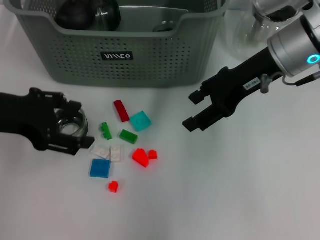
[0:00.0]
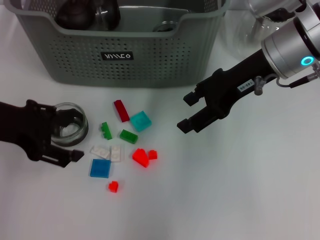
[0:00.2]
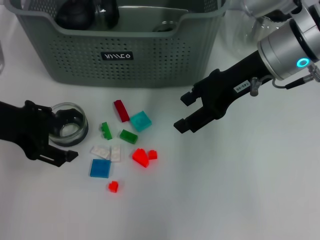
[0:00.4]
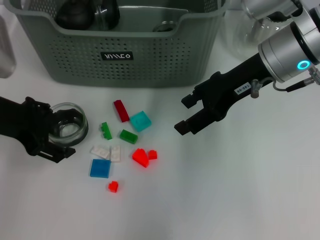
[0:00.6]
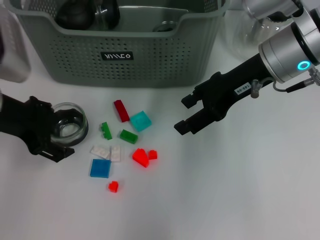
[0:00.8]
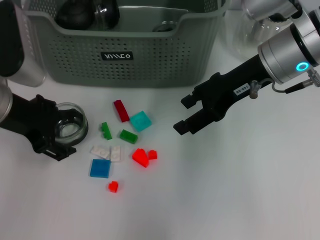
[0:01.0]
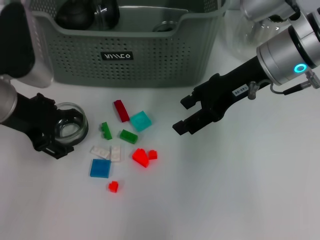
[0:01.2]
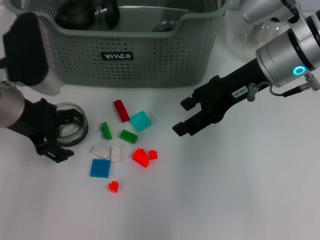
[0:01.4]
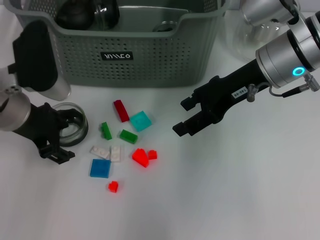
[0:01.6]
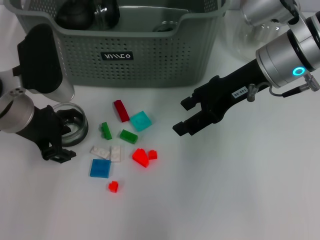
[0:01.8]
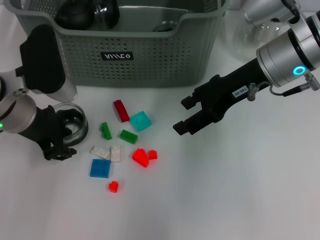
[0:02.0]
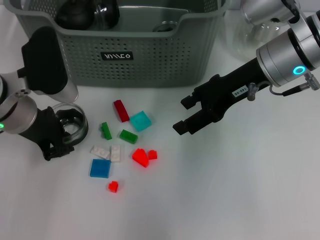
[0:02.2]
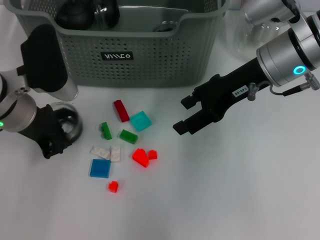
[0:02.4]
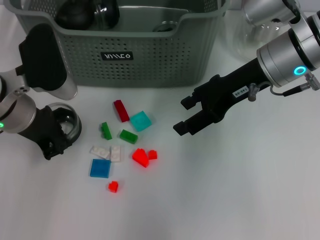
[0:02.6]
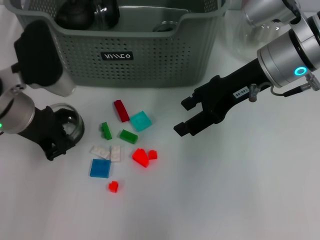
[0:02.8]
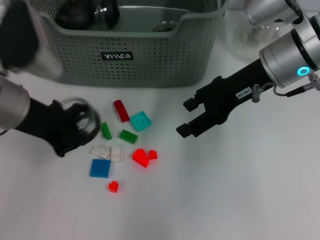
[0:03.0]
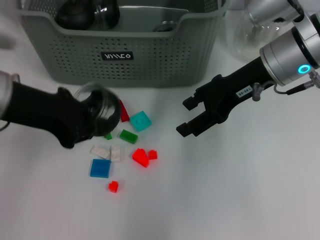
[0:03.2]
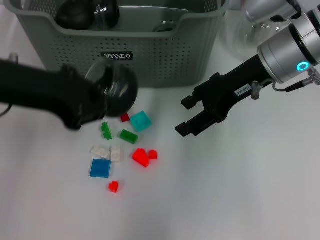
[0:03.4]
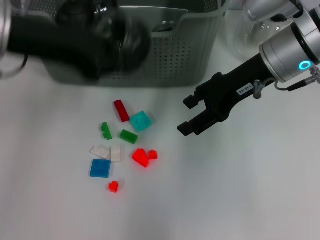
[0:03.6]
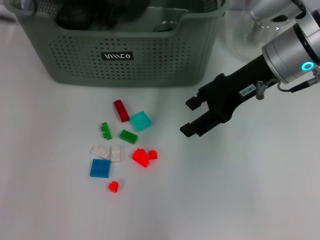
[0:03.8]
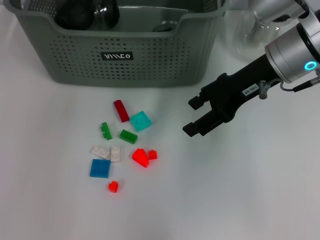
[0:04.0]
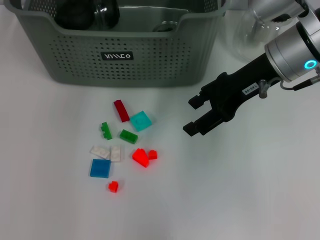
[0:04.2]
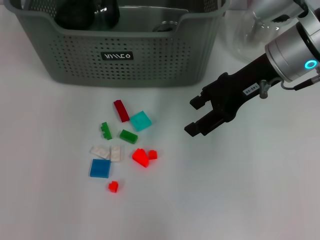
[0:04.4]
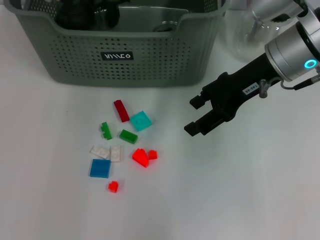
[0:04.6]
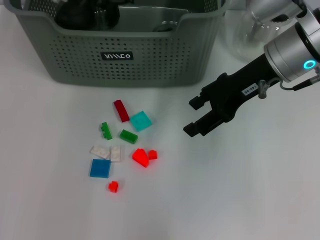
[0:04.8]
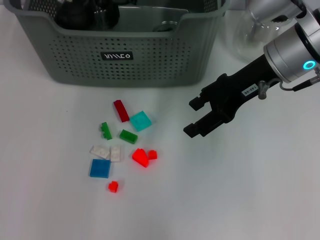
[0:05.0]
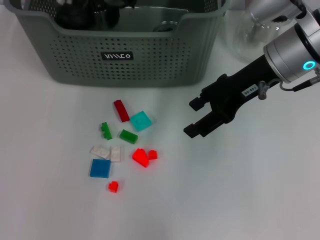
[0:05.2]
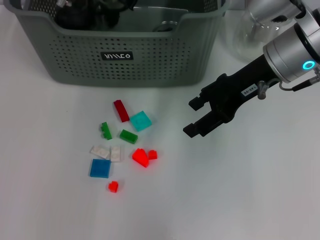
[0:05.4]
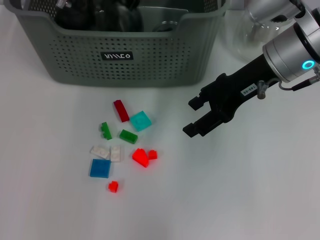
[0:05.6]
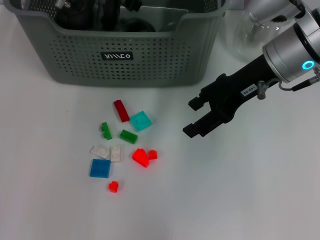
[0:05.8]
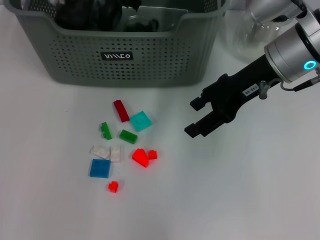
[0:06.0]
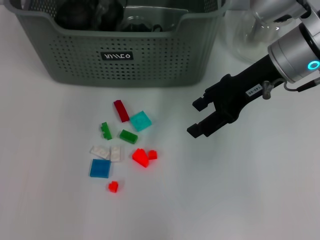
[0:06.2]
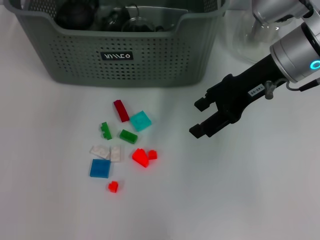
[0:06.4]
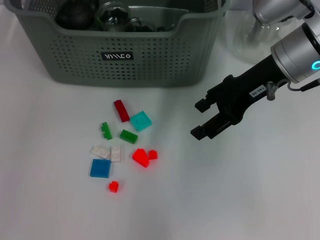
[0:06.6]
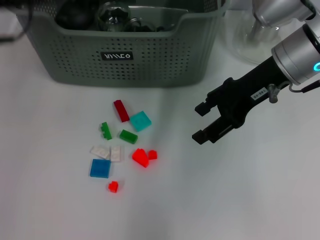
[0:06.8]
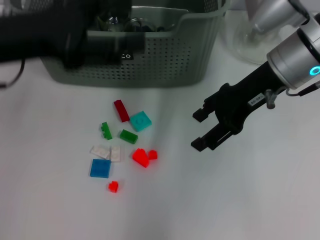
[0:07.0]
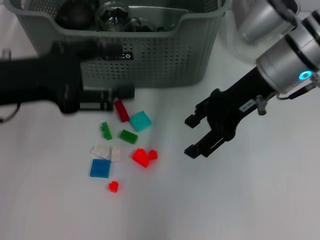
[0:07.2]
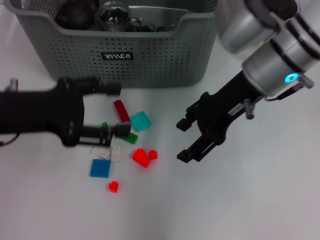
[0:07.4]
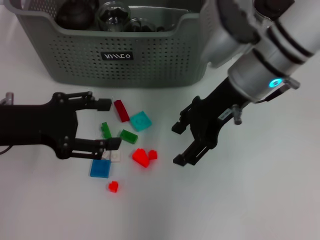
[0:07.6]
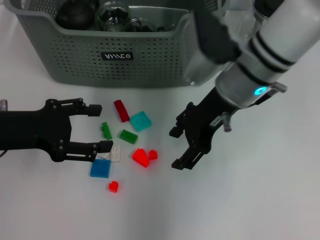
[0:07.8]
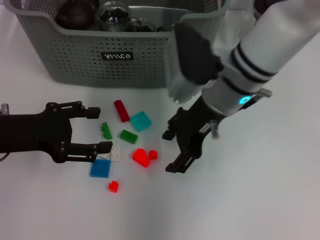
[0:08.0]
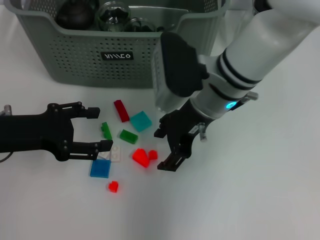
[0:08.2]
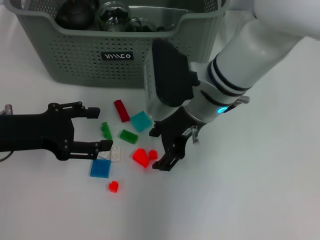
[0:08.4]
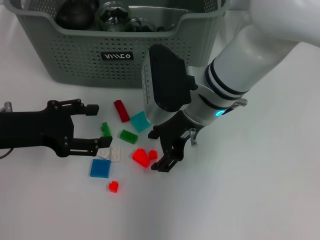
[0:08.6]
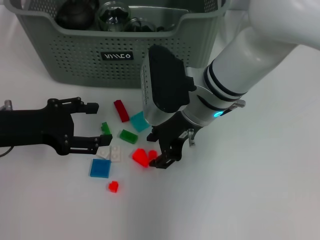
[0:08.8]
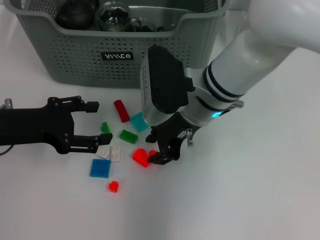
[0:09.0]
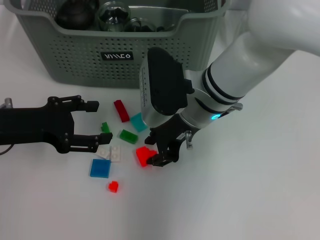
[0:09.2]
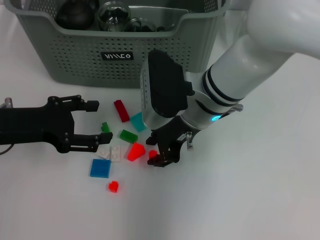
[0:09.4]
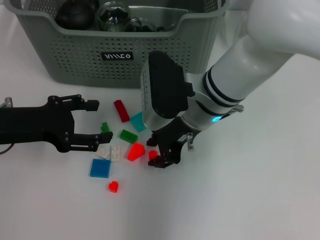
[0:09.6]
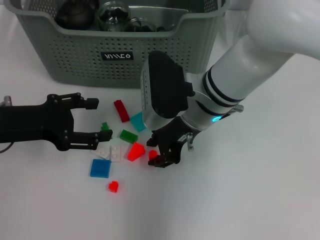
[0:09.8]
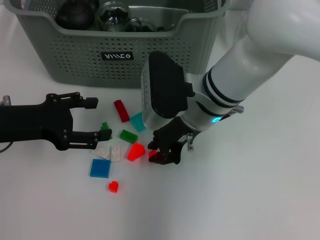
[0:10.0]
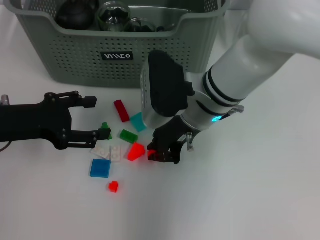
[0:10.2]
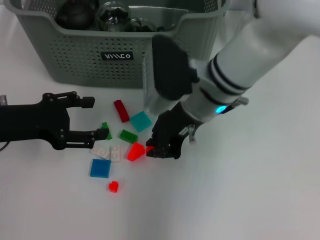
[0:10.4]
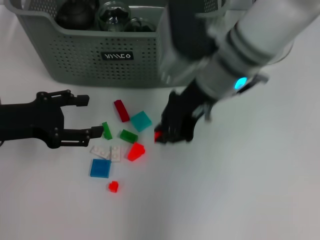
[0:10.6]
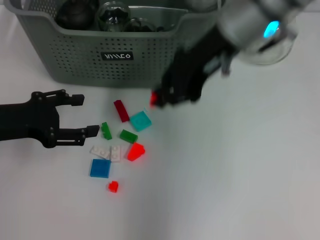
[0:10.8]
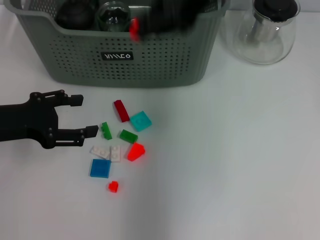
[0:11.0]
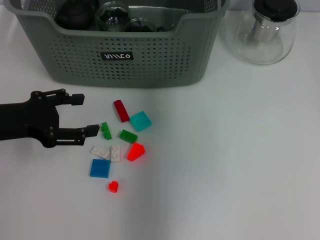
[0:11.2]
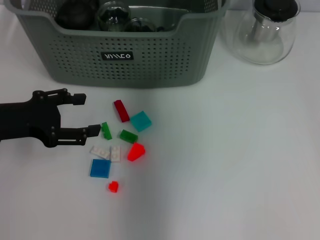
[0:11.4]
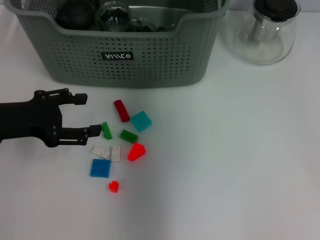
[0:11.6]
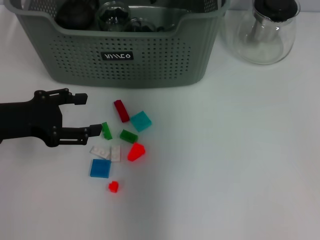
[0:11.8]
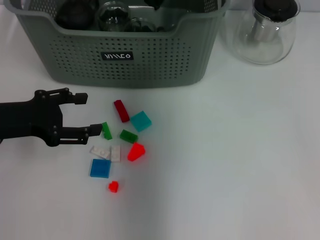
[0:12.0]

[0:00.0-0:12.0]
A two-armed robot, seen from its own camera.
Task of the whole recording: pick up the teacup on the table and place it into the storage bin, pick up the block on the table and place it into the storage bin.
Step, 0:00.0 to 0:02.6: Grasp the cup with left gripper.
Step, 0:02.8 to 0:05.8: Place the cup in the storage box with left gripper.
Step, 0:06.0 to 0:10.0: Grasp the orange block with right gripper.
0:00.0 to 0:01.6: The left gripper changes place by some 10 cm.
0:01.6 to 0:03.0: The left gripper closes its fingers.
0:03.0 to 0:04.4: The left gripper goes about 15 cm forward.
0:04.4 to 0:06.0: The left gripper opens.
0:06.0 to 0:07.6: The left gripper shifts approximately 25 cm backward and to the left, and opens up, while the right gripper shifts by some 5 cm.
0:07.6 to 0:09.0: The right gripper heads to the left and downward, covering roughly 10 cm.
0:09.0 to 0:10.4: The right gripper closes up.
0:10.4 to 0:12.0: The right gripper heads forward and upward, covering about 15 cm.

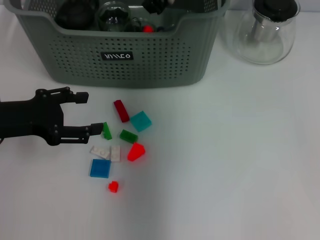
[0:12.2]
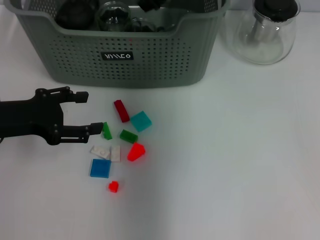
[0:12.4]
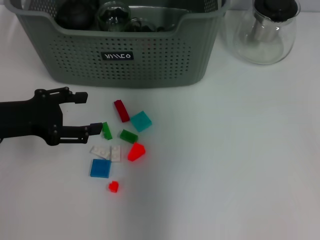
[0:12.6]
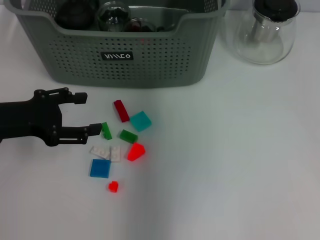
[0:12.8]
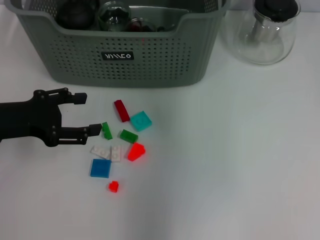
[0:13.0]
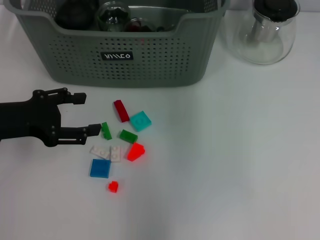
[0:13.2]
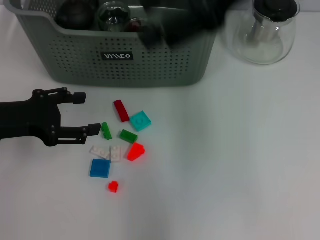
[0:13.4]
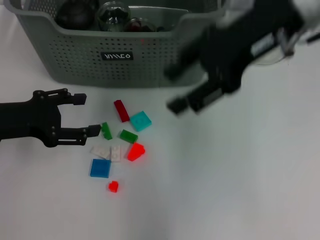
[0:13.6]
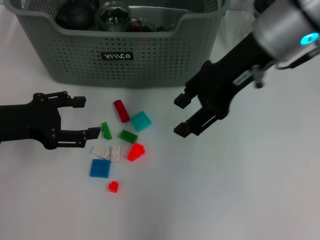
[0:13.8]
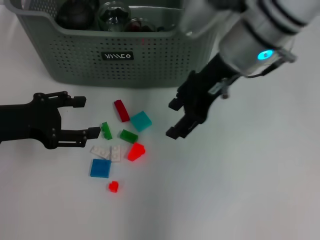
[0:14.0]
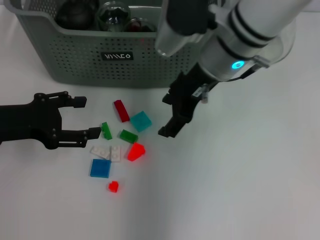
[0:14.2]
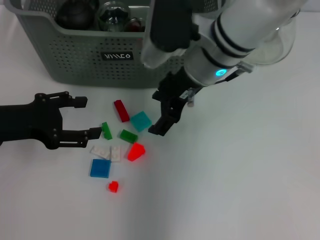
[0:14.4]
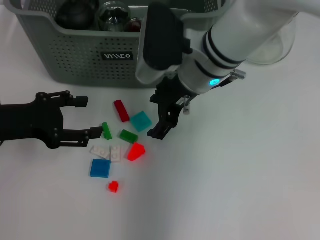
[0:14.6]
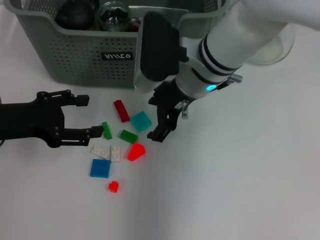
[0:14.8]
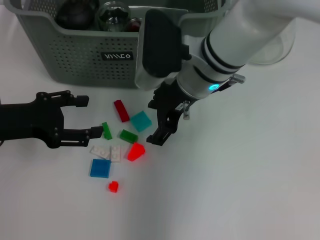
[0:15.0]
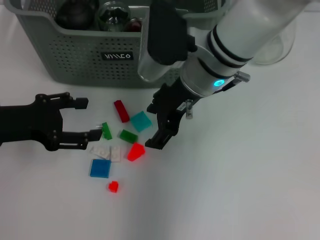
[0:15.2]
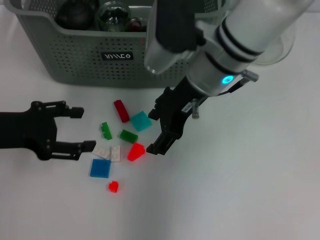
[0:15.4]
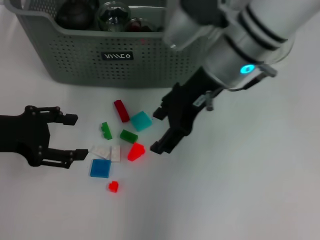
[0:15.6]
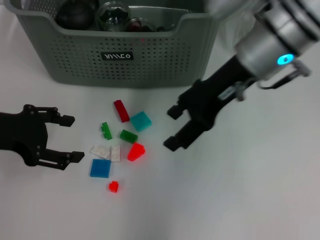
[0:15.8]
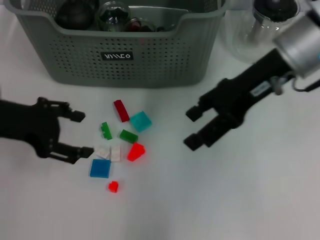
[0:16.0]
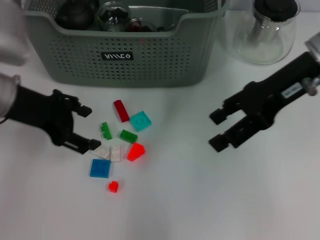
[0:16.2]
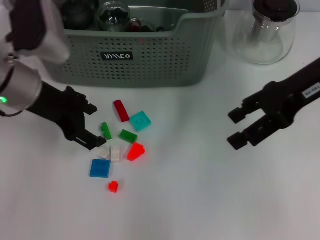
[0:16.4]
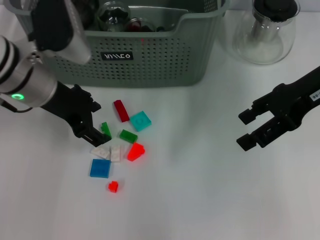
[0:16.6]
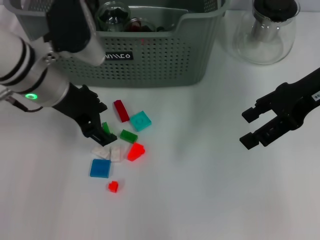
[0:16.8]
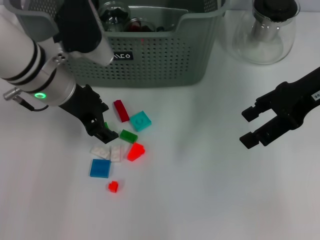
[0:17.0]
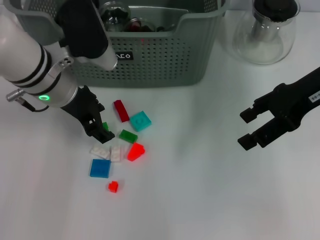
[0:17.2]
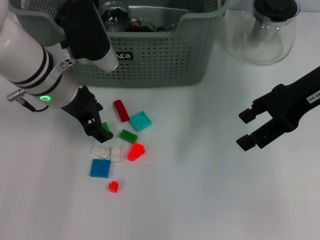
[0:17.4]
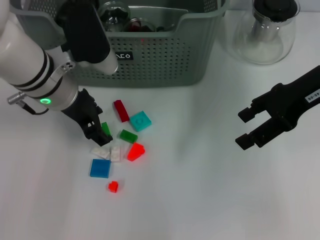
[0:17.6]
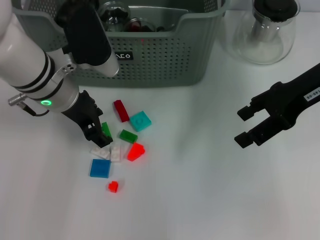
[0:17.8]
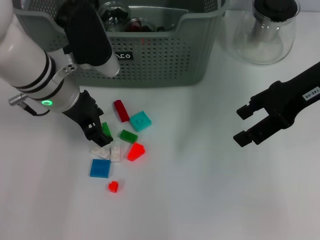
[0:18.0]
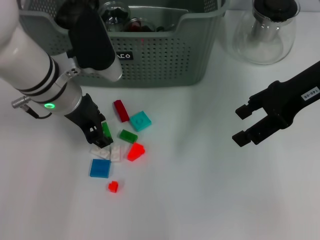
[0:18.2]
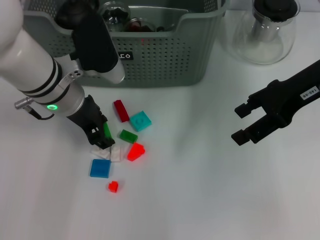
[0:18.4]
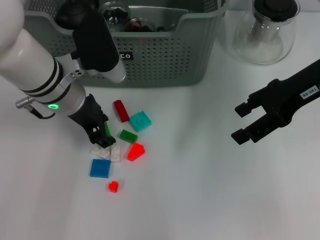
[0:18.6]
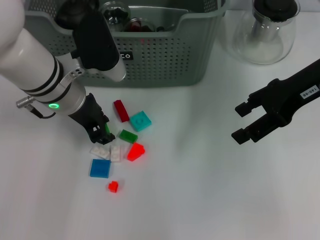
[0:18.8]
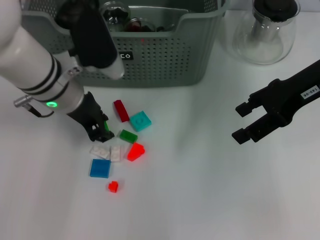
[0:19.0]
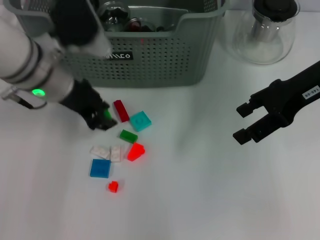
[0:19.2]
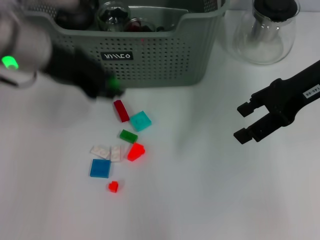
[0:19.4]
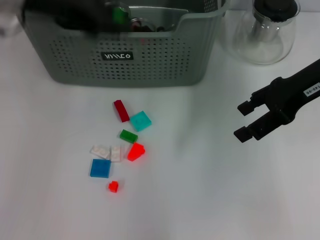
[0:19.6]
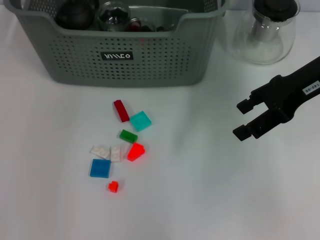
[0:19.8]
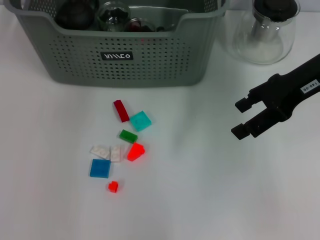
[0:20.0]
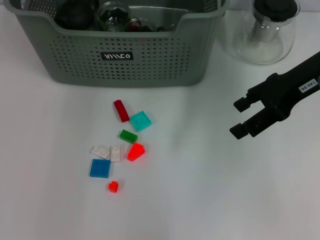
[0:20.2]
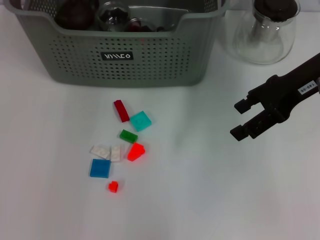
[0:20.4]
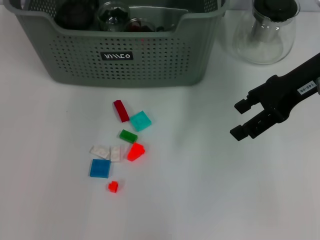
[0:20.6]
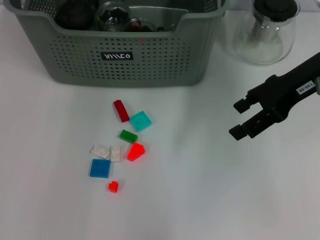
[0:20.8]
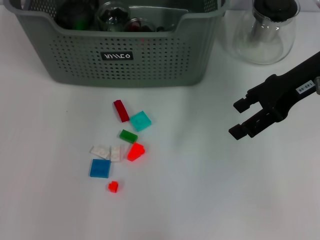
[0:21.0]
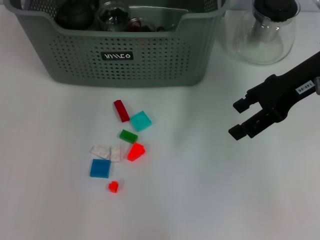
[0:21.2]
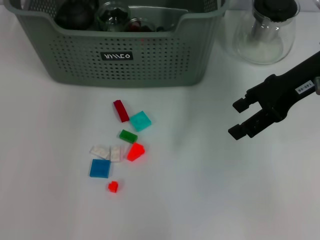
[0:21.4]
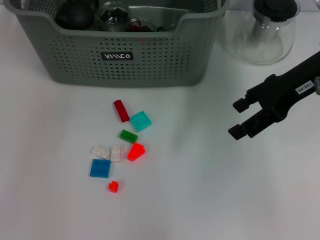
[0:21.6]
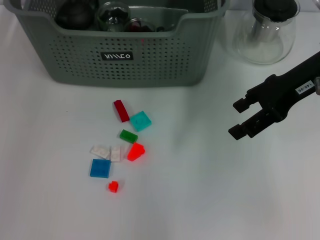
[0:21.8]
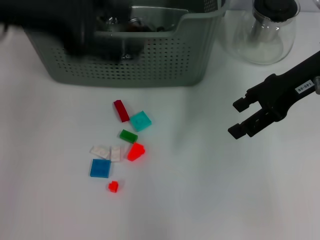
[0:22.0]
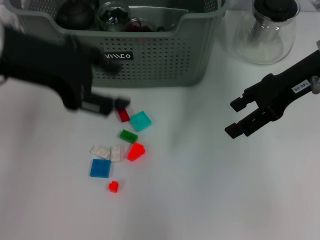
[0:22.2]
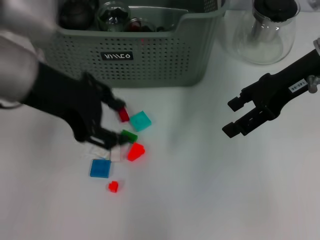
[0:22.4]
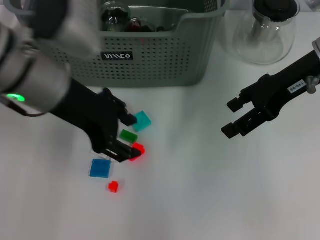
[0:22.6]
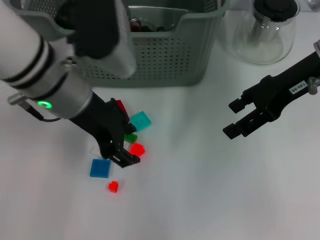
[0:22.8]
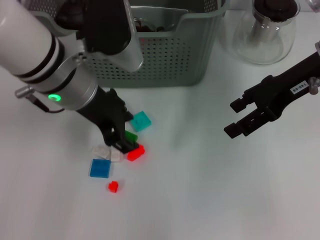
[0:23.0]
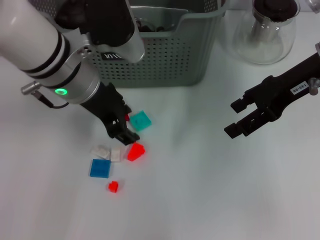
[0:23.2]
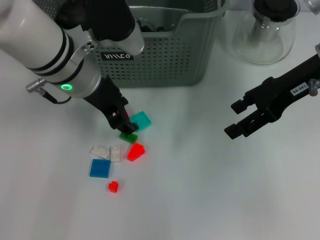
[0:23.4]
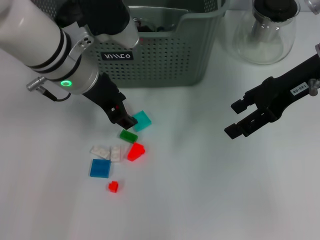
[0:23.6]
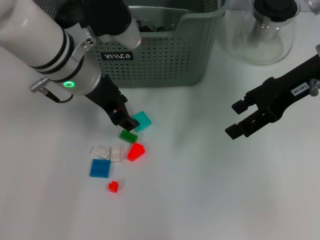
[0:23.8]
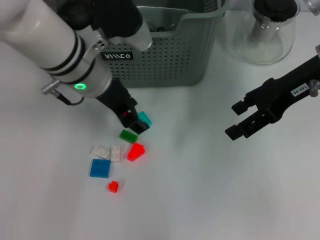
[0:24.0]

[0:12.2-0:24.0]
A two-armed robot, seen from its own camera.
Task of the whole recording: pick up the teacup on the table and place it into the storage bin, pick up the block on the table and place it into the storage bin.
Step, 0:12.4 to 0:18.8: Grasp the green block with left gripper.
Step, 0:19.0 to 0:21.0: Place the green block in the storage box with left gripper.
0:12.2 to 0:13.6: The right gripper moves backward, to the right and upward, roughly 15 cm, and opens its fingers.
0:13.6 to 0:15.2: The right gripper shifts roughly 15 cm downward and to the left.
0:15.2 to 0:16.6: The left gripper is displaced to the right and forward by approximately 10 cm; the right gripper moves to the right, about 20 cm.
0:16.6 to 0:18.2: The grippers move only a little.
0:18.2 to 0:19.6: The left gripper travels upward by approximately 15 cm.
0:19.6 to 0:21.0: The left gripper travels forward by some 15 cm.
0:21.0 to 0:22.6: The left gripper goes about 15 cm backward.
0:22.6 to 0:24.0: The left gripper heads downward and forward, covering roughly 10 cm.
